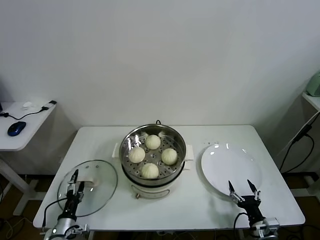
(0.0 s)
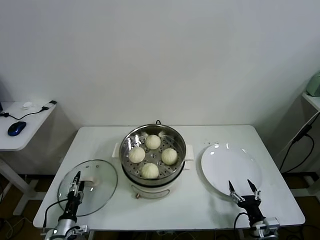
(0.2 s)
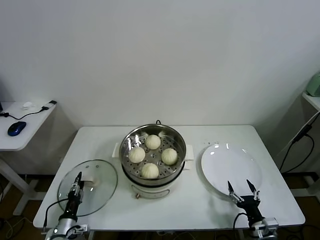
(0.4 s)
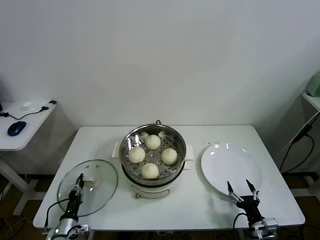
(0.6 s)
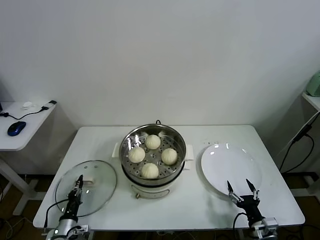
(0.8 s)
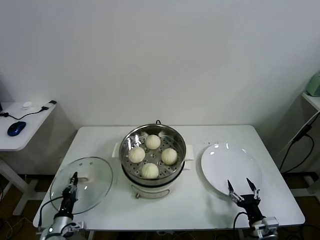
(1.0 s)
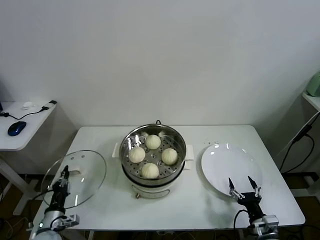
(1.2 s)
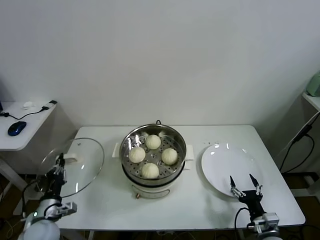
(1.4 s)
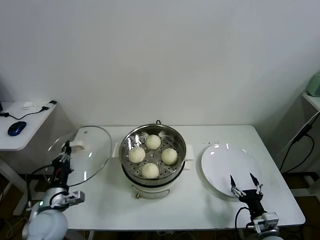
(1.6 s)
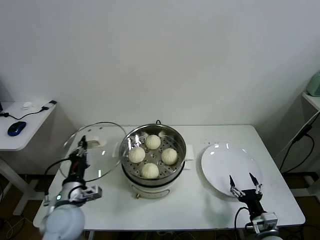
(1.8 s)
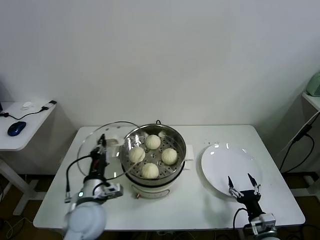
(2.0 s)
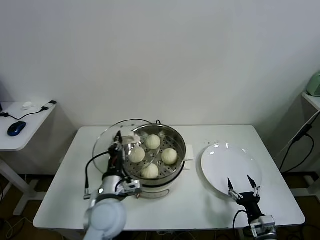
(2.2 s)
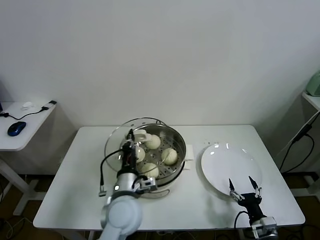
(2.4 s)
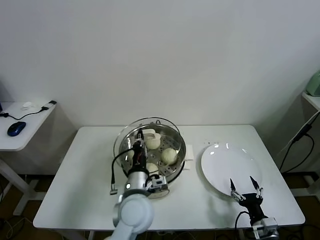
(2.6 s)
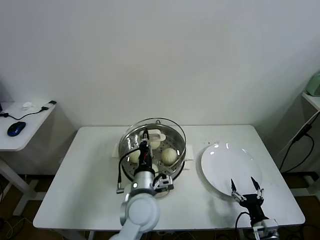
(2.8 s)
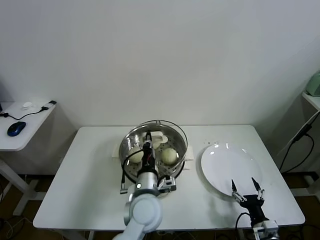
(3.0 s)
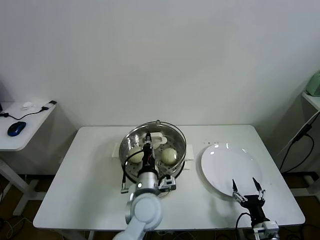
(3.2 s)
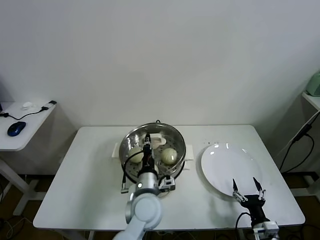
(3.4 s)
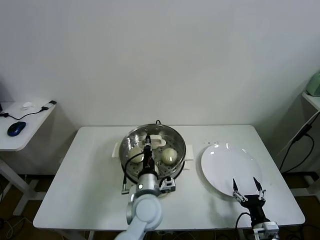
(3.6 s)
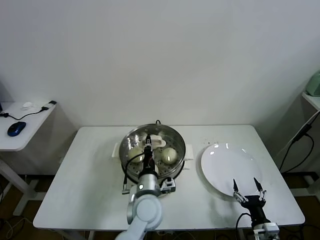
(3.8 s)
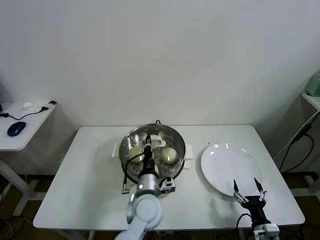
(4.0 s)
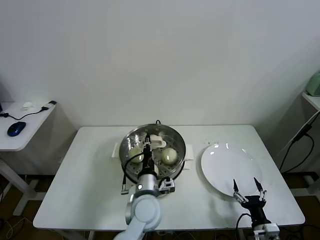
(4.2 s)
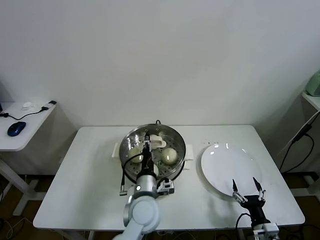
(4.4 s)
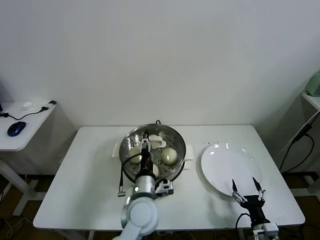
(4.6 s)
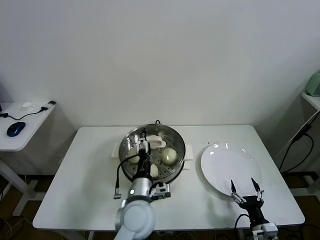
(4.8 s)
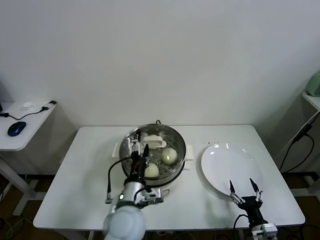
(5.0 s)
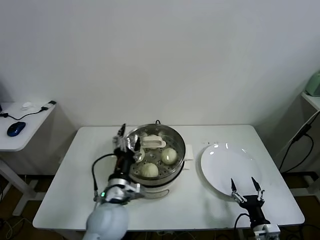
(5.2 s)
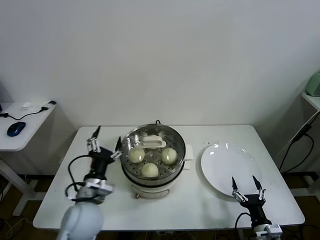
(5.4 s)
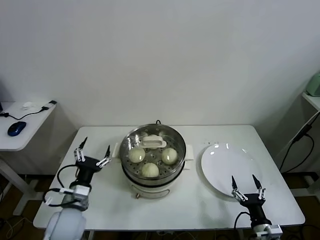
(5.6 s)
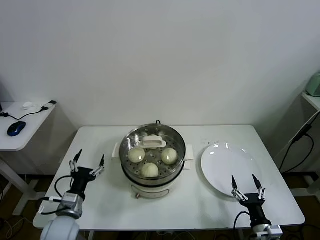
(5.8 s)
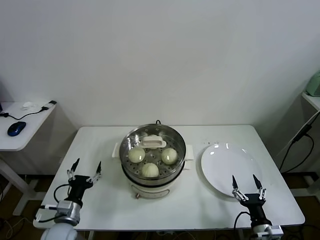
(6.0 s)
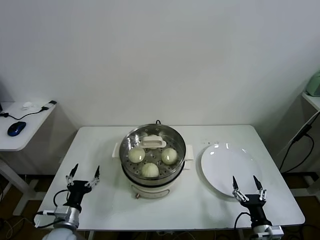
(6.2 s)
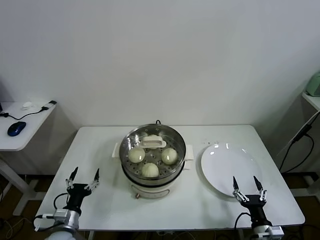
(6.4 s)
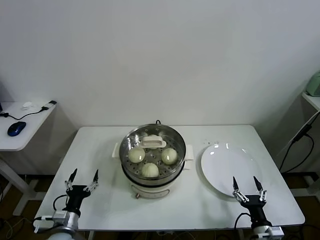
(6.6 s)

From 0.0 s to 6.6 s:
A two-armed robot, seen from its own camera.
Task of the whole recording: take steamed baozi put them in steamer.
Step, from 1.0 s to 4.6 s: Place the pot lid on the steamer with left gripper.
From 0.0 s to 1.6 s: The left gripper goes about 15 cm upward, and closes up.
From 1.6 s to 3.2 s: The left gripper heads to the right, covering roughly 30 cm.
From 3.2 s to 5.0 s: The left gripper ends up about 5 cm from where it was, and opens its fingers.
From 5.0 s to 6.6 s: The left gripper goes roughly 30 cm to the left and downward.

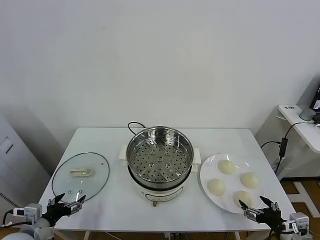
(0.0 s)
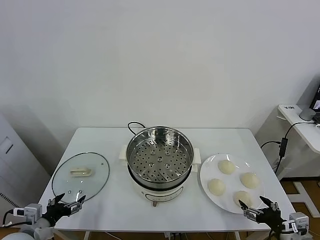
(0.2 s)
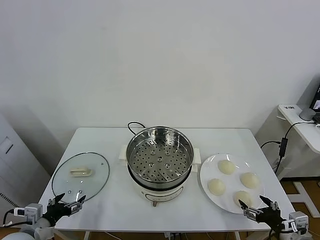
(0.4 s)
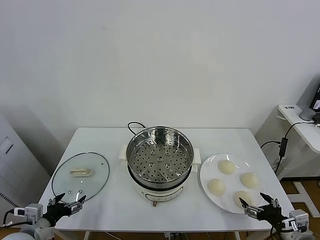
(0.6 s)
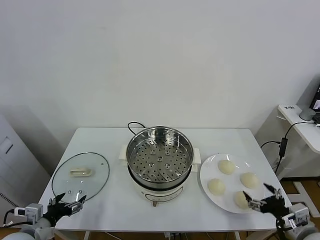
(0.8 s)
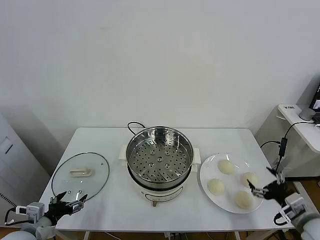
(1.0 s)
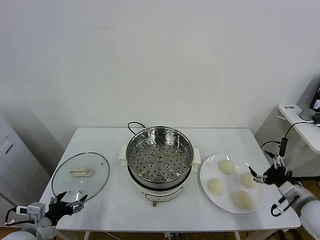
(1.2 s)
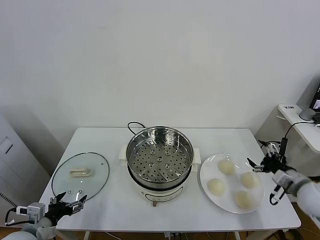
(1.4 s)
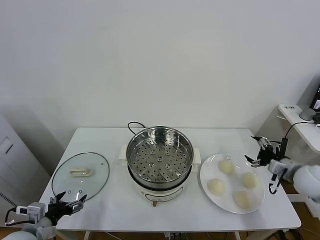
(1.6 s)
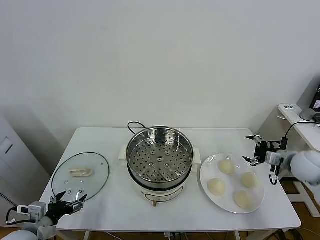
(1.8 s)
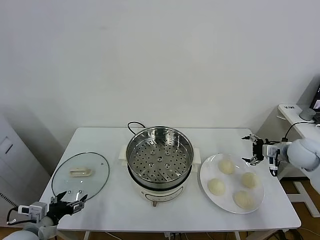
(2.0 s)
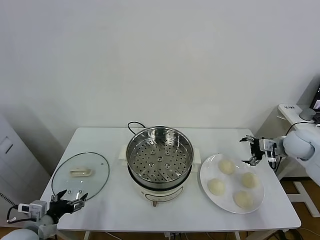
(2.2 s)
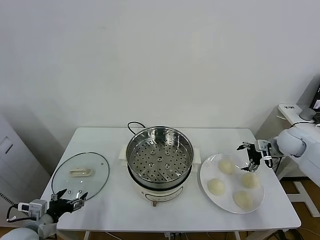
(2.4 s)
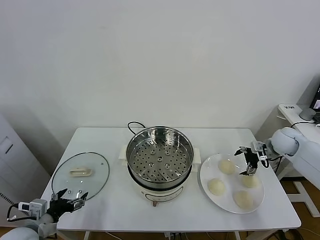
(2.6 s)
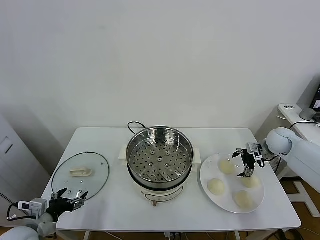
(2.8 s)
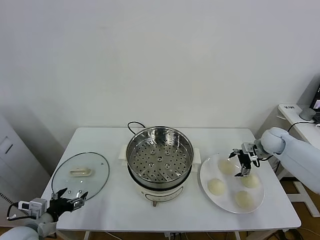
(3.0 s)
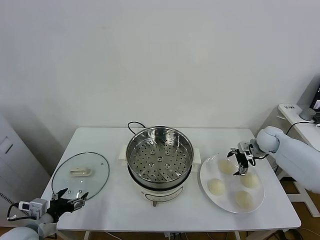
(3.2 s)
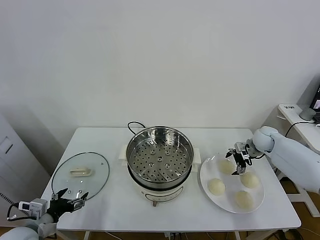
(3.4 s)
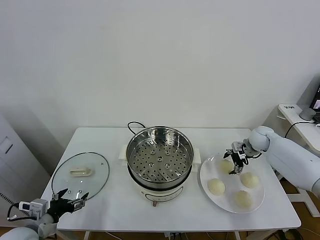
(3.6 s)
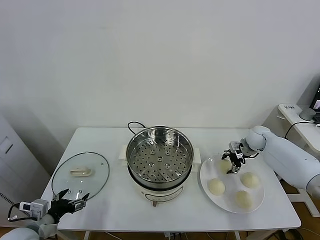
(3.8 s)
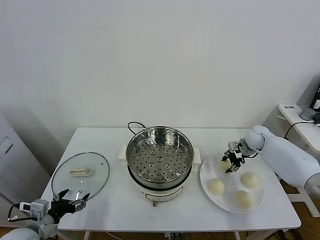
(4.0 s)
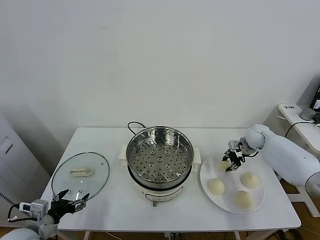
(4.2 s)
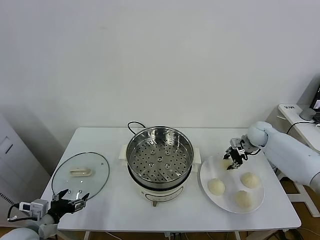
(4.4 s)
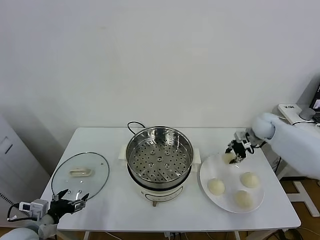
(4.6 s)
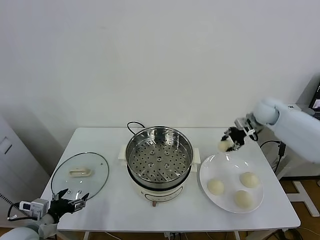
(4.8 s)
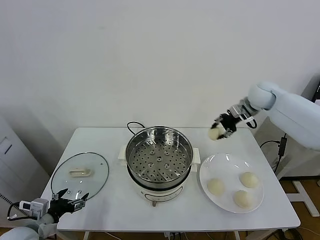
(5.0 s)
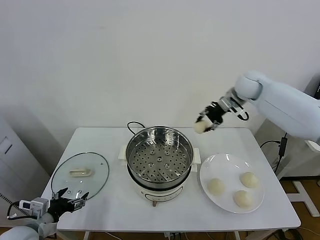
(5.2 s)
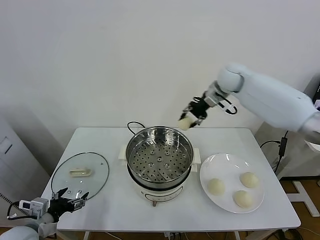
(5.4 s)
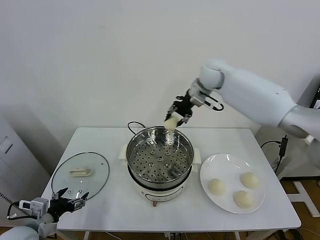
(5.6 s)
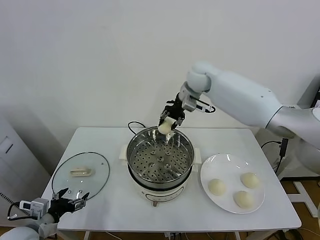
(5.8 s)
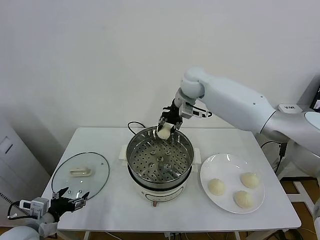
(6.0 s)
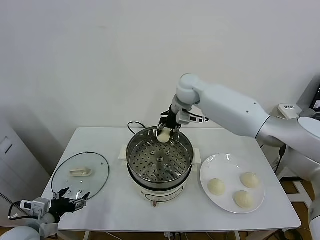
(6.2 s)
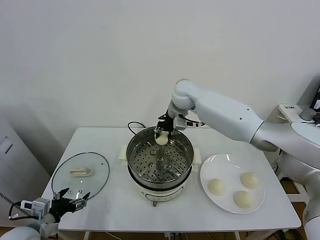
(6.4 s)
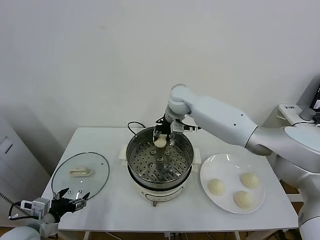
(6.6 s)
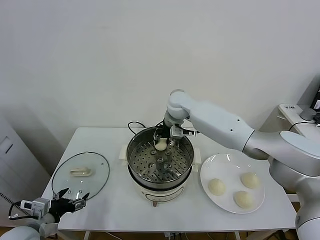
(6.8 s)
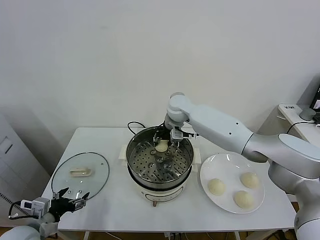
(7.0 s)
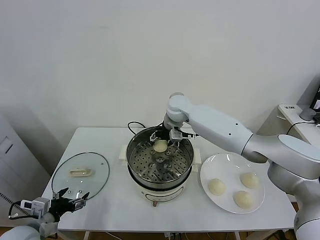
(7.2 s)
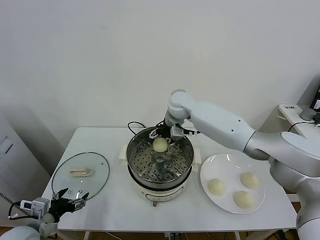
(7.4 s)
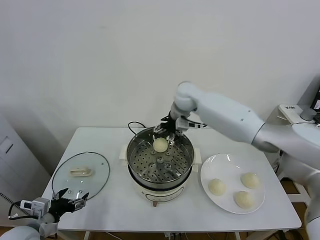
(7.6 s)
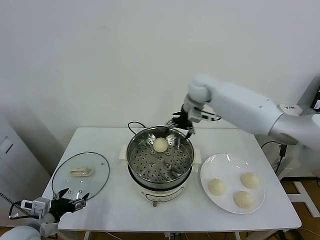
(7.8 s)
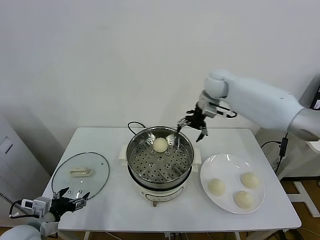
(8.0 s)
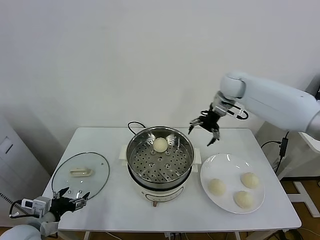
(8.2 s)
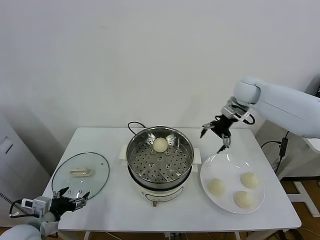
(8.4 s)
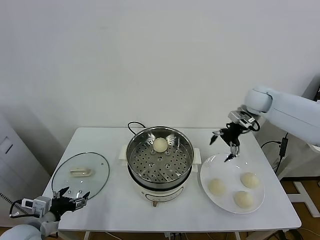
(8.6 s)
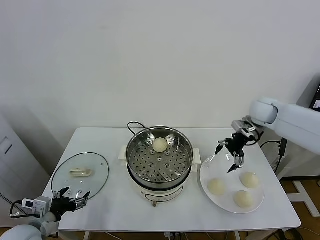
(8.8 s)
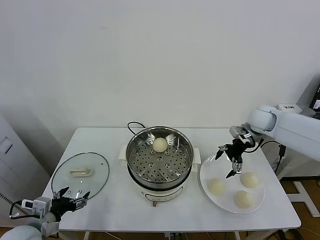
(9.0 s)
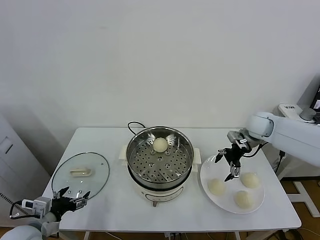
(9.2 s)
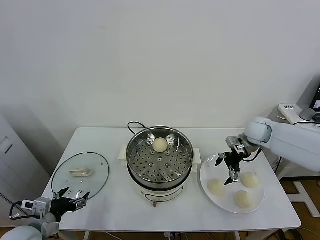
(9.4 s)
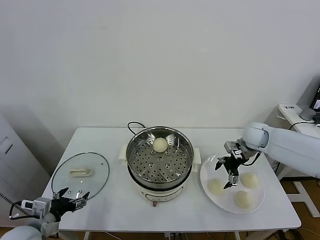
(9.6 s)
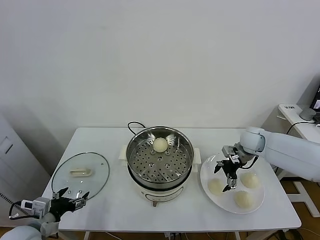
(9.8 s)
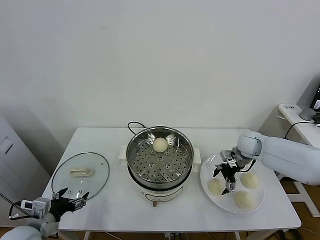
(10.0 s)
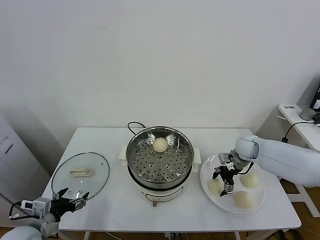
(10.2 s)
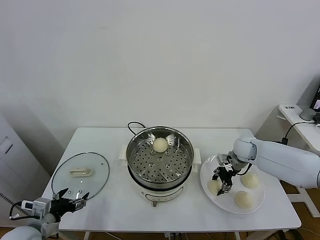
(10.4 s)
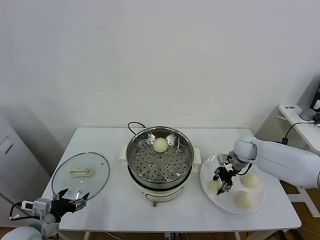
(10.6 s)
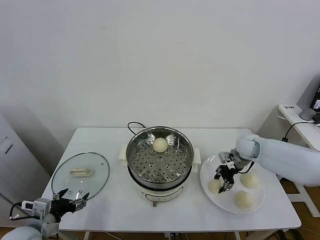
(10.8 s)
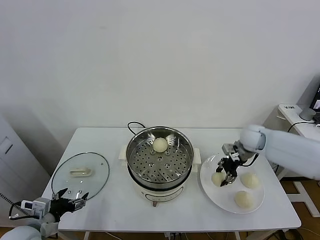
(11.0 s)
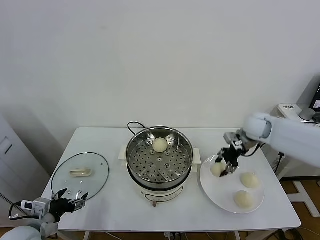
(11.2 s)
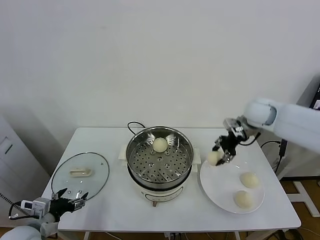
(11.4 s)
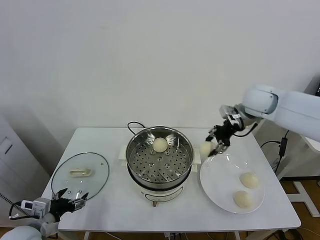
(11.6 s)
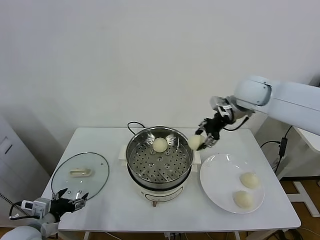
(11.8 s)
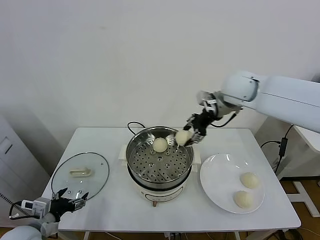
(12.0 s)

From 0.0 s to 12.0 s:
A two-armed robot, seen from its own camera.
Task of the whole recording: take steamed baozi put them in steamer.
Step, from 0.0 s to 4.0 s: Grasp the baozi in the plate with right gripper.
Step, from 4.2 s to 7.4 s: Place the baozi on the steamer with right gripper.
Step, from 7.6 s to 10.4 s: Grasp the baozi in the plate with right gripper.
From 1.6 s to 3.0 s: The right gripper is displaced forward by some 15 cm.
From 3.0 s to 4.4 s: The right gripper closes up.
From 4.4 s to 6.0 s: The right gripper travels to the left and upward by about 35 cm.
From 6.0 s to 7.6 s: The right gripper reaches some 10 cm downward, then returns, and opens up.
From 7.6 s to 9.0 s: The right gripper goes roughly 25 cm to the right.
From 9.0 s to 10.4 s: The right gripper shifts some 10 cm downward, and closes its fingers.
From 10.4 s to 12.0 s: The right gripper travels upward and to the left by approximately 30 cm.

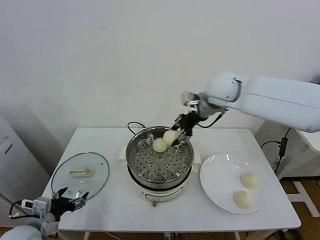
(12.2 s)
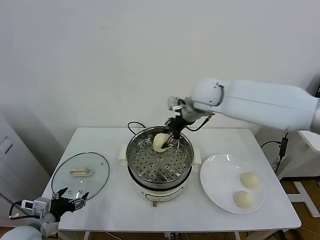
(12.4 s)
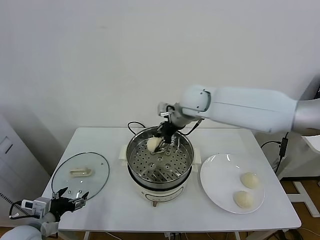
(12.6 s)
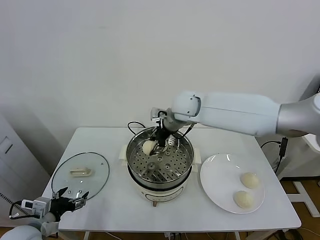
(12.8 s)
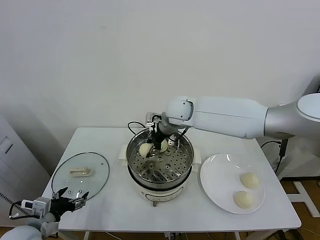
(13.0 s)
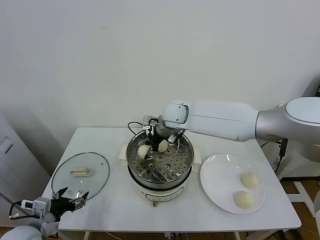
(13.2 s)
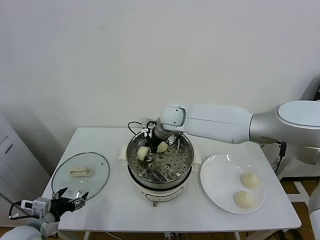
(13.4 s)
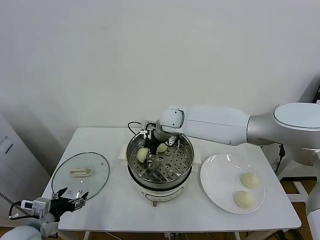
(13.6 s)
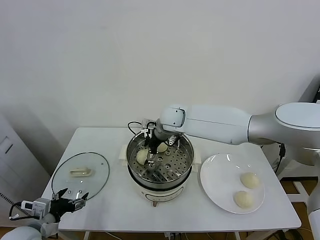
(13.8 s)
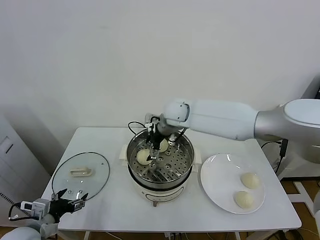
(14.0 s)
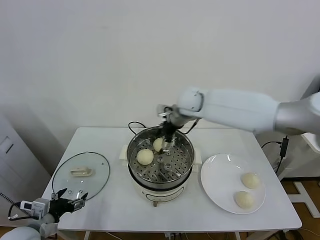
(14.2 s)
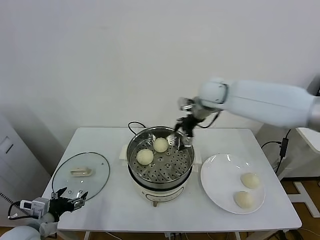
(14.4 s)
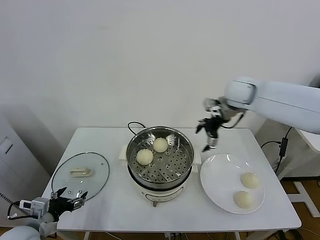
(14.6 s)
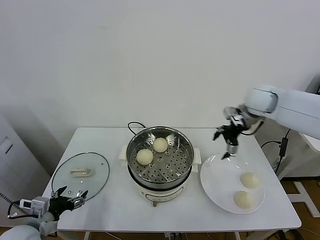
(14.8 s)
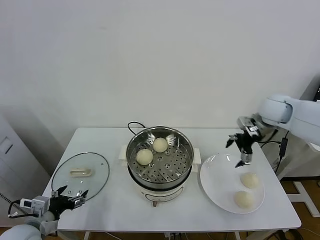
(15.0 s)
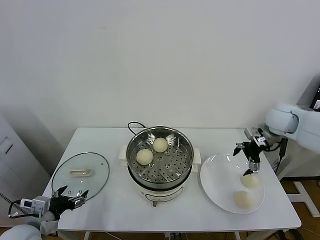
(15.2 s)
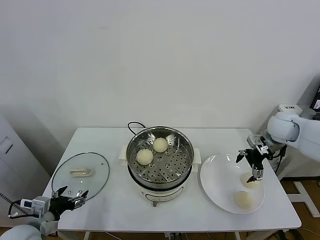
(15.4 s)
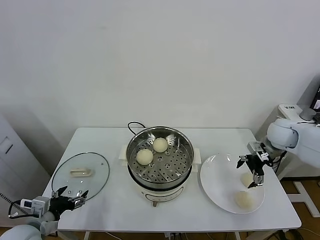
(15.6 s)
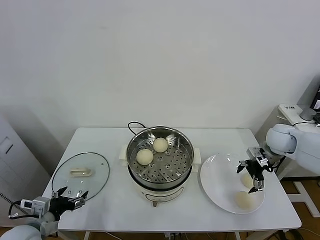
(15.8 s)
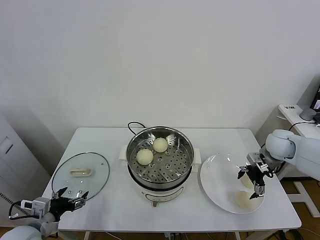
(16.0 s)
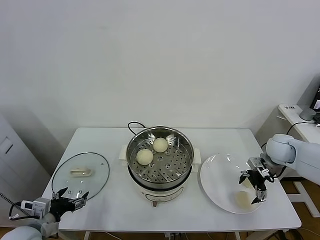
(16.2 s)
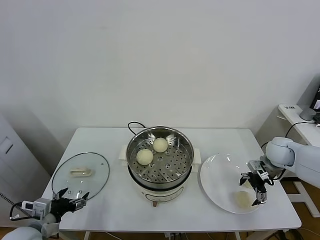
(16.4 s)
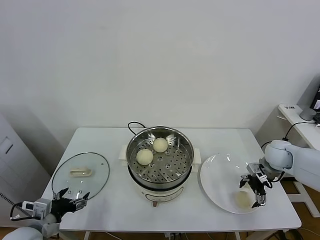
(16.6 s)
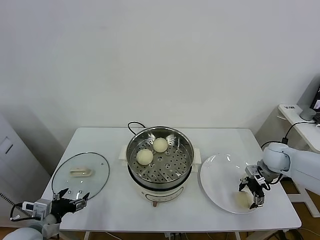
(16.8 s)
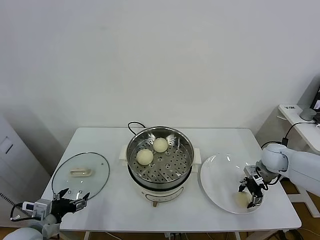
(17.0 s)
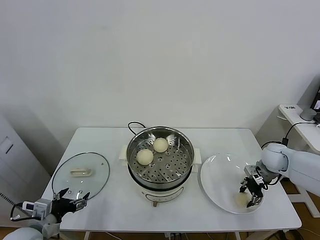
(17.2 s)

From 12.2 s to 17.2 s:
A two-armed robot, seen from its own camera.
Task of the whole recording: take steamed baozi put them in steamer.
Step, from 12.2 s to 14.0 s: Place the baozi on the steamer with right gripper.
Step, from 14.2 s to 17.2 s: Grasp the baozi in the plate with right gripper.
From 12.2 s to 13.8 s: The right gripper goes approximately 15 cm downward and to the left, and opens.
From 13.8 s to 15.6 s: The right gripper moves to the right, roughly 35 cm.
From 15.6 s to 17.2 s: The right gripper travels downward by some 10 cm, and closes up.
